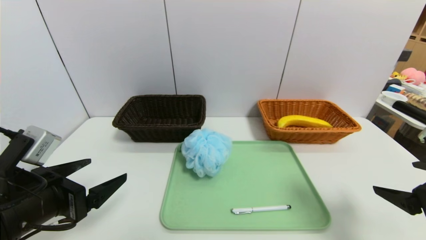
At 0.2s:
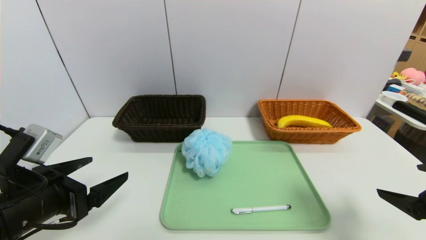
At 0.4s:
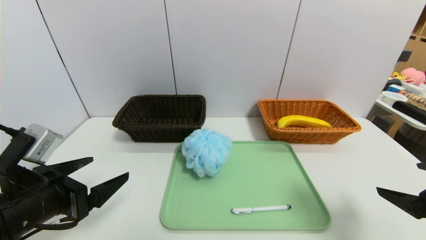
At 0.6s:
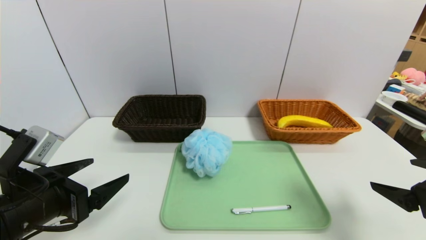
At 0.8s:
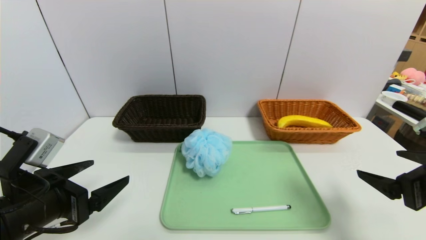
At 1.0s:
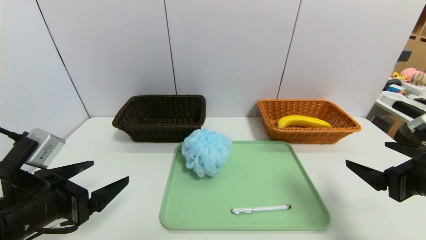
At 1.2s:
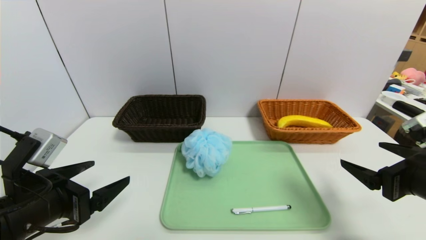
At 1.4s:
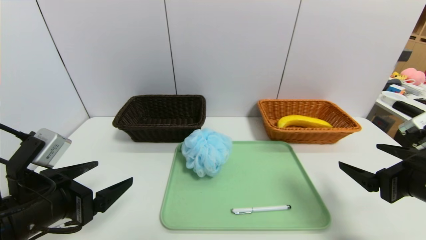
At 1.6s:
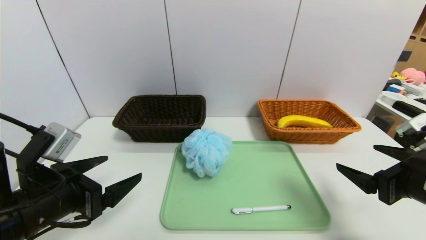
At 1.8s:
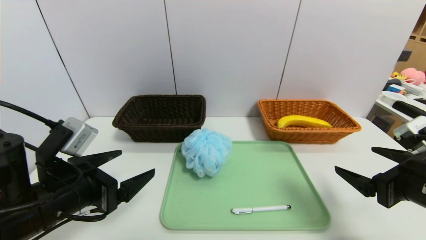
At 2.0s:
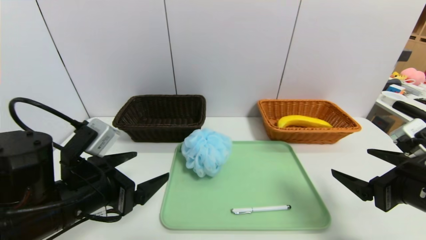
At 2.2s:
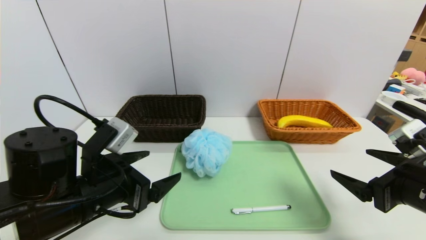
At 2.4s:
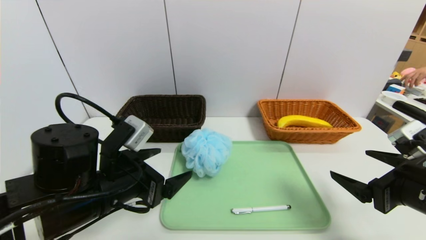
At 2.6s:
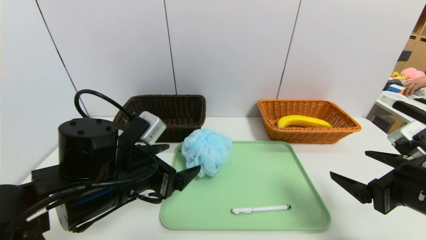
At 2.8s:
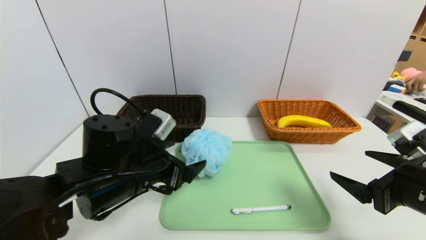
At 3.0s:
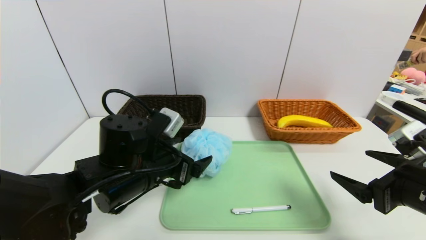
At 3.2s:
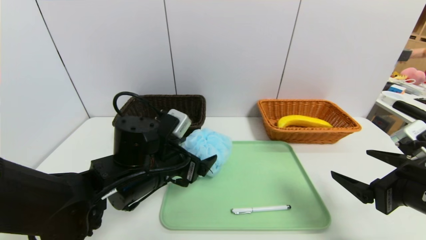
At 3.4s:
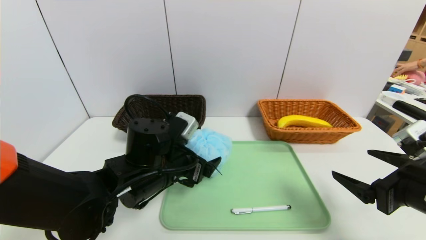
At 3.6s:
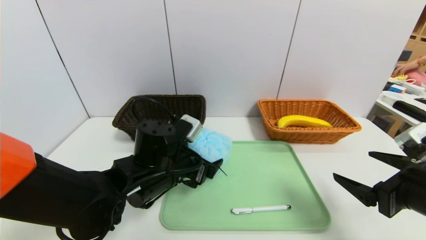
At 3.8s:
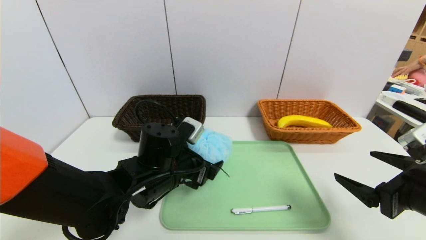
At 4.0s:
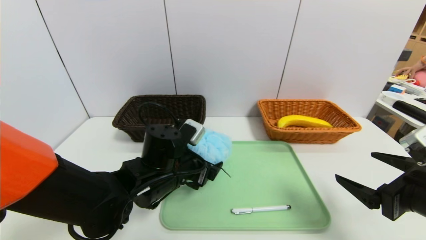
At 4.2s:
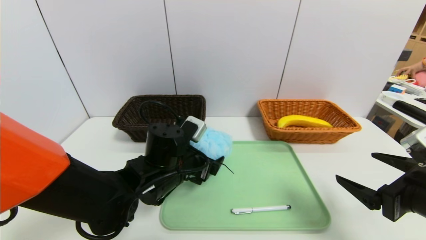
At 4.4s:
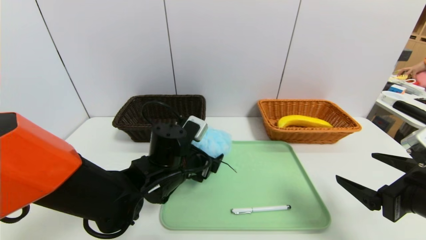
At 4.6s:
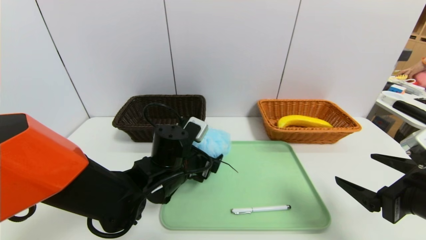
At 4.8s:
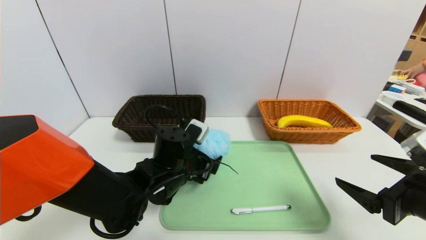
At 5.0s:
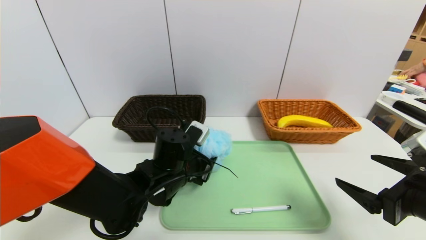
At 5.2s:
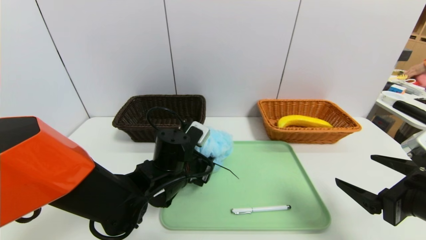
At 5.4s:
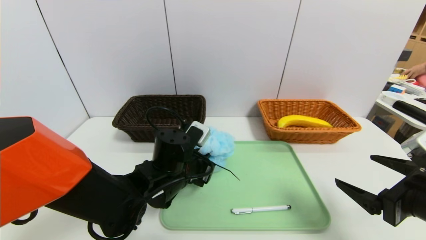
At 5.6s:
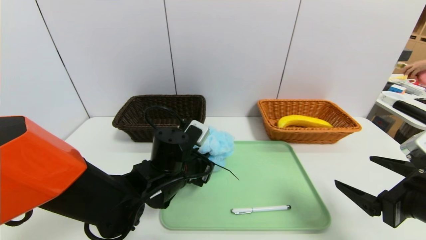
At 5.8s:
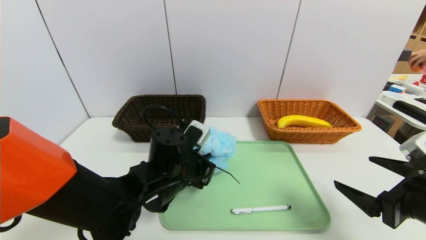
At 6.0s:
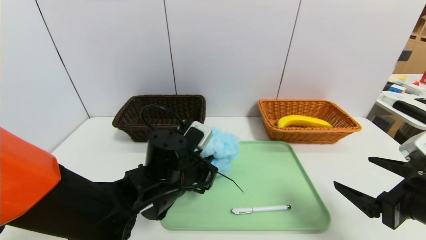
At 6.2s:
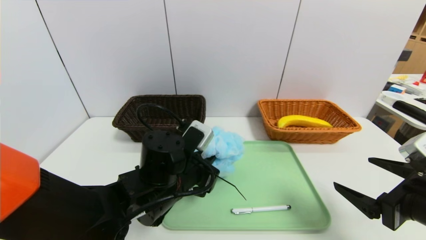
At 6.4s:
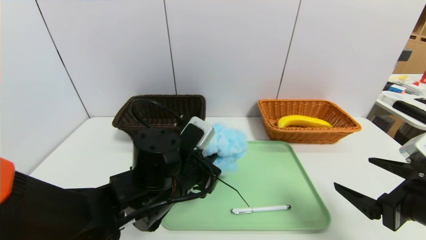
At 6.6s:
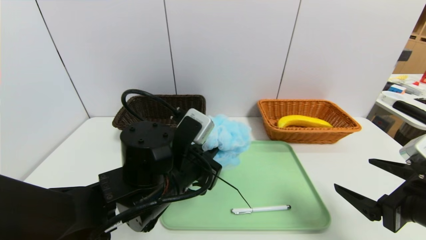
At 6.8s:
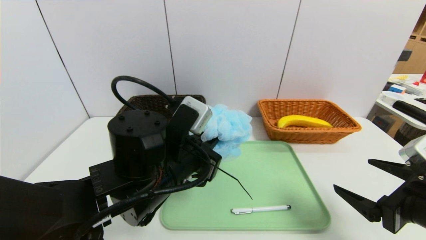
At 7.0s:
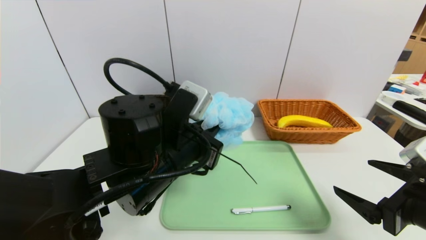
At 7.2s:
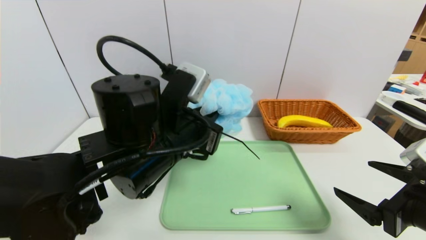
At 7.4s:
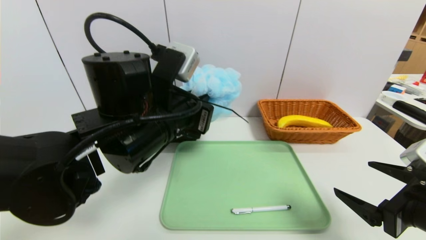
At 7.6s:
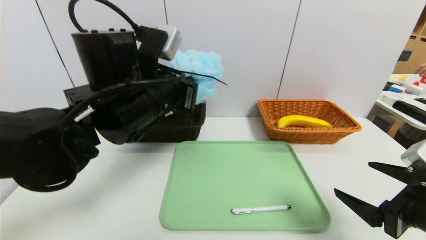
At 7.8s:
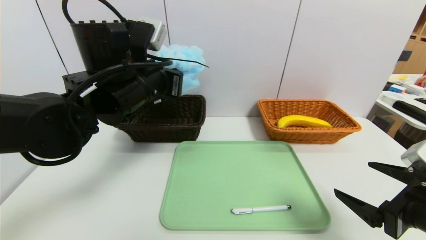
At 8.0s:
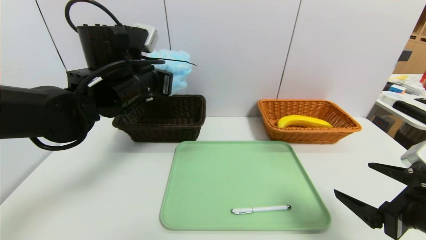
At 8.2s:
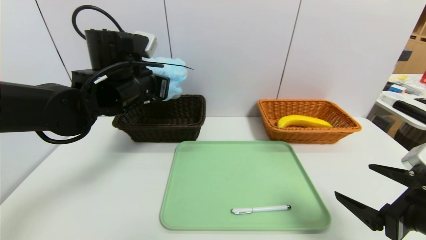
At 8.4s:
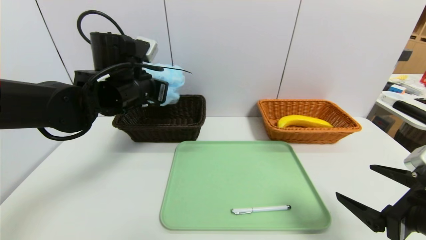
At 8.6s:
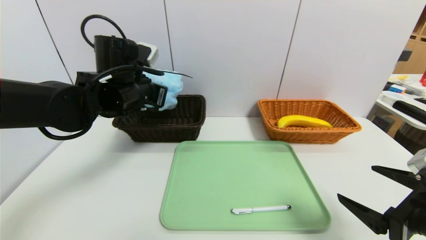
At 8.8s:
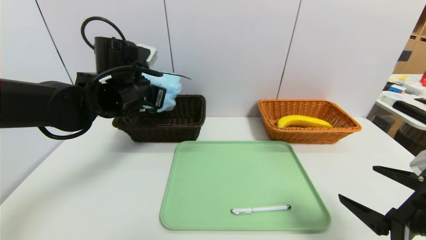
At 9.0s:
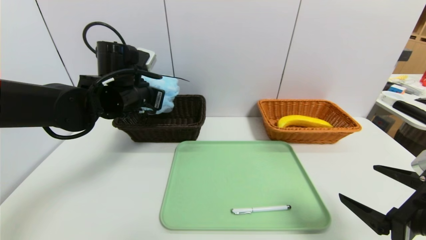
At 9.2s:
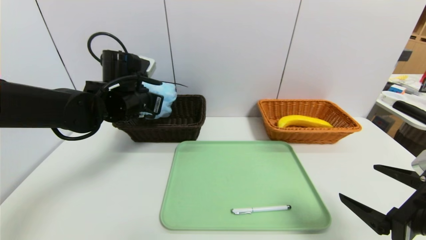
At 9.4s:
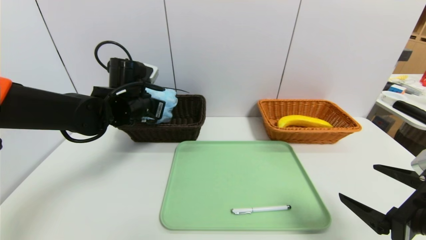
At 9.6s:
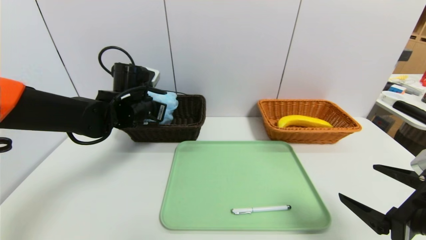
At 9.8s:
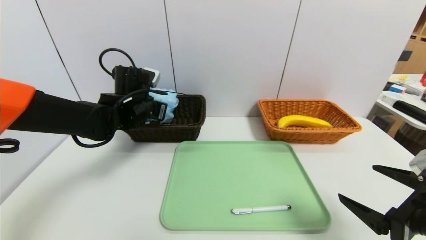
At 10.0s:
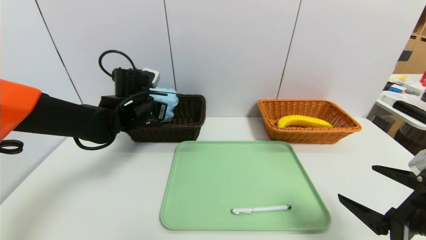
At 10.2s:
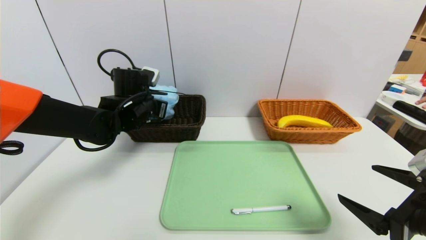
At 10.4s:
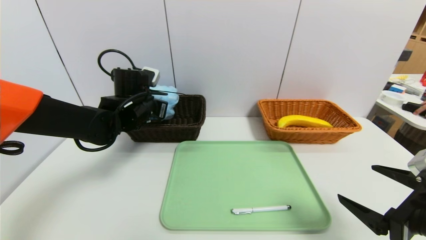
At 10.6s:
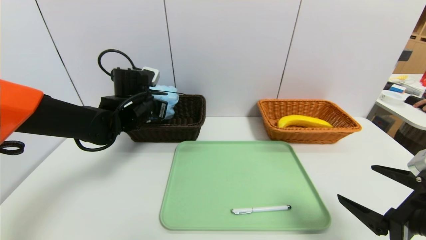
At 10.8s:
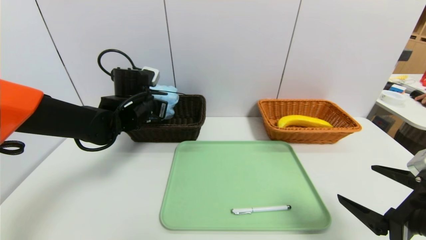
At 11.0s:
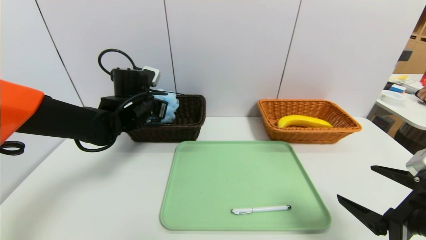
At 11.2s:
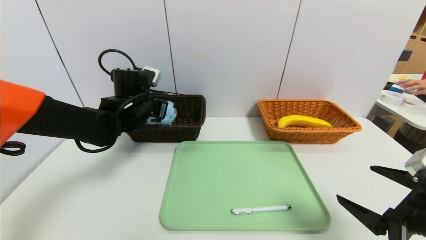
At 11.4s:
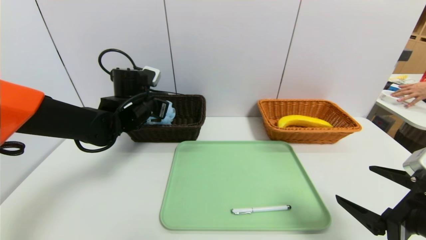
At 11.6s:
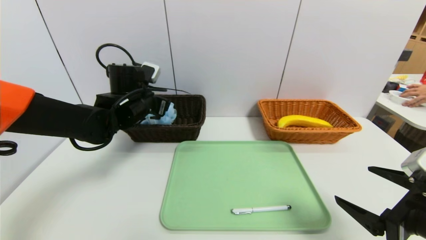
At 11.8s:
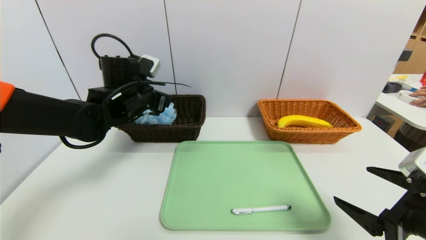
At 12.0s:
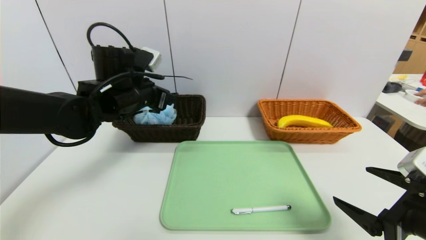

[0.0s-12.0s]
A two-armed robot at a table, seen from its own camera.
Task of the whole recording: place the food in the right basket with the right gripper, and place the non food items in the left basket with the left gripper.
Step, 0.0s to 12.0s: Grasp the shower sphere and put it in the left basket.
0.0s to 1.6s: The grippers stay close to where they were, moving slightly.
1.6s to 3.0s: The left gripper goes about 15 cm to the right and forward.
3.0s to 4.4s: The left gripper ends up some 5 cm from where it was.
4.4s to 6.0s: The left gripper closes its fingers.
6.0s to 7.6s: The left gripper shifts approximately 15 cm upward.
7.6s to 9.0s: The left gripper travels forward and to the left by about 10 cm.
9.0s to 10.4s: The left gripper ends up roughly 5 cm from where it was.
10.4s to 12.0s: The left gripper travels upward by approximately 5 cm, and opens up.

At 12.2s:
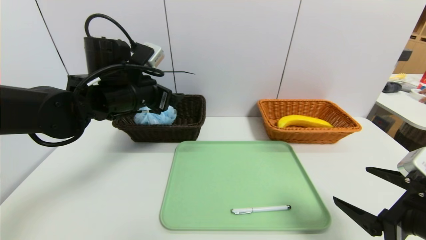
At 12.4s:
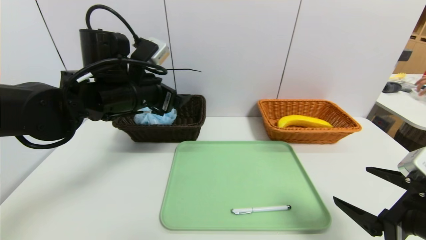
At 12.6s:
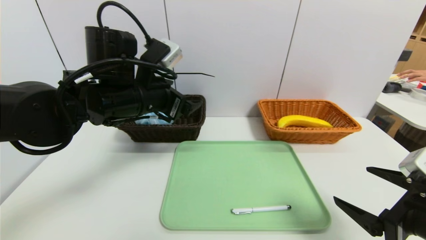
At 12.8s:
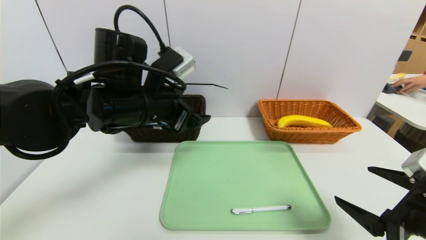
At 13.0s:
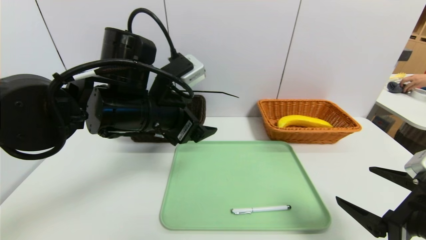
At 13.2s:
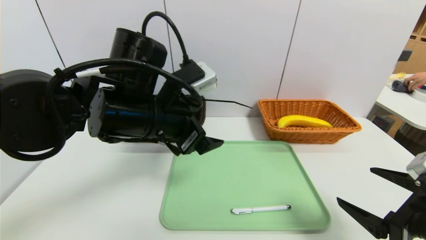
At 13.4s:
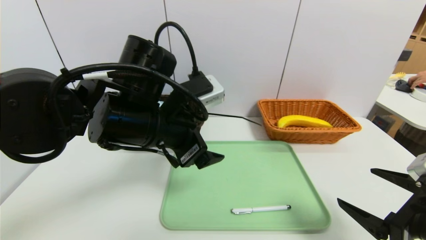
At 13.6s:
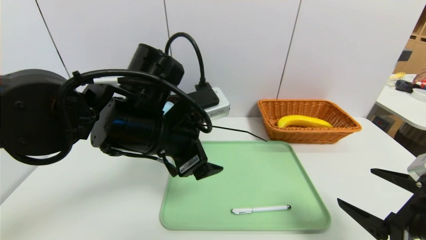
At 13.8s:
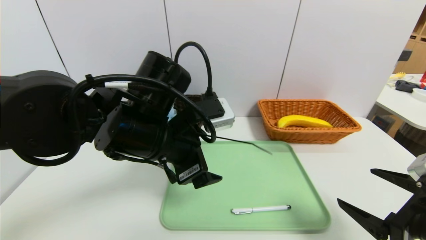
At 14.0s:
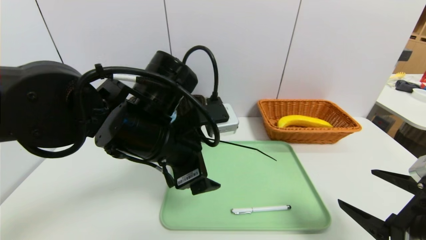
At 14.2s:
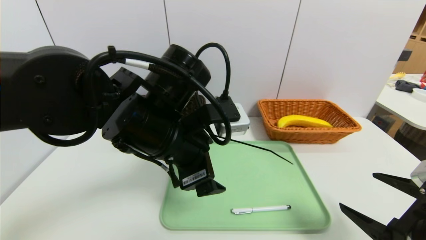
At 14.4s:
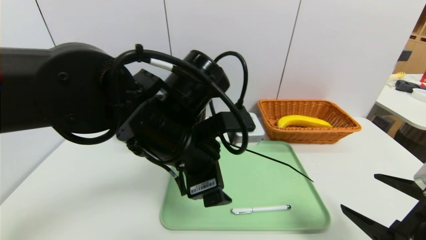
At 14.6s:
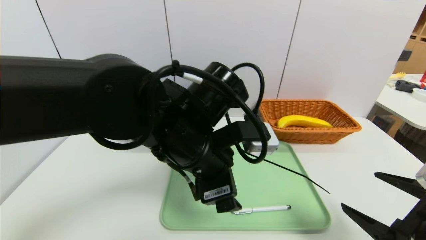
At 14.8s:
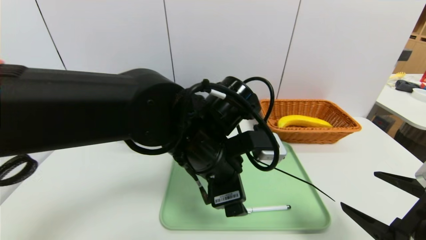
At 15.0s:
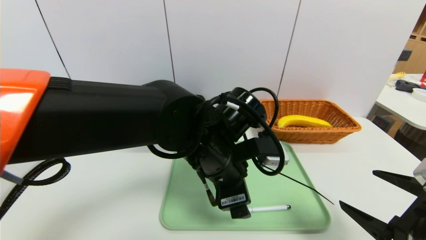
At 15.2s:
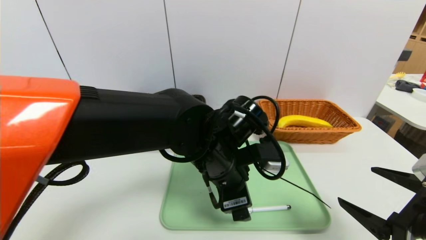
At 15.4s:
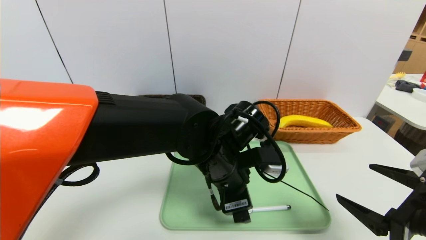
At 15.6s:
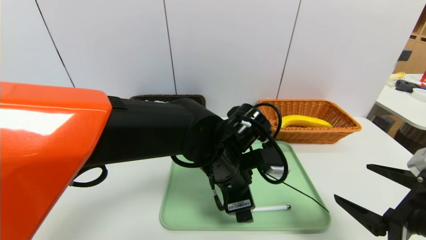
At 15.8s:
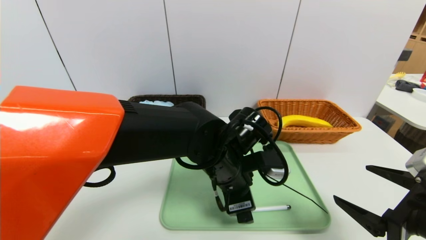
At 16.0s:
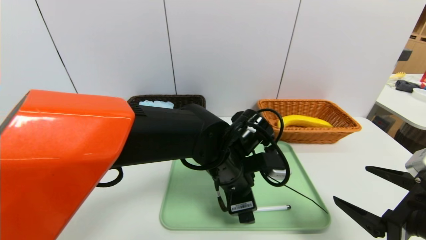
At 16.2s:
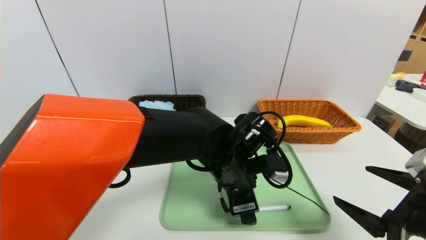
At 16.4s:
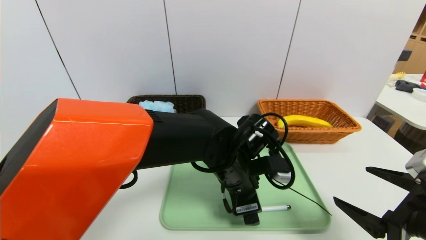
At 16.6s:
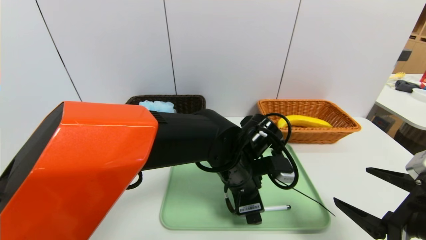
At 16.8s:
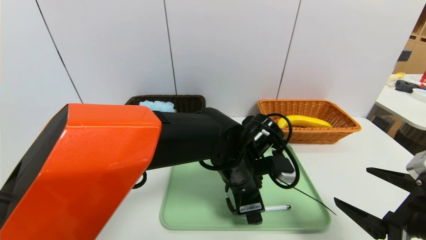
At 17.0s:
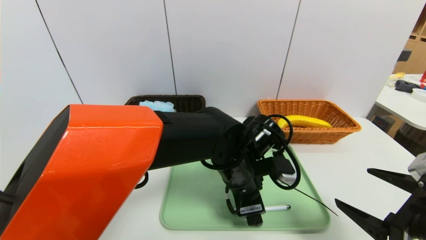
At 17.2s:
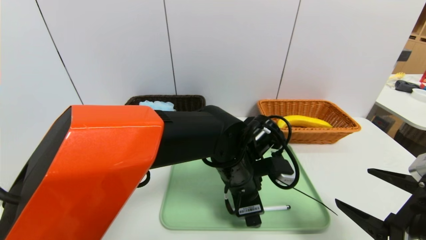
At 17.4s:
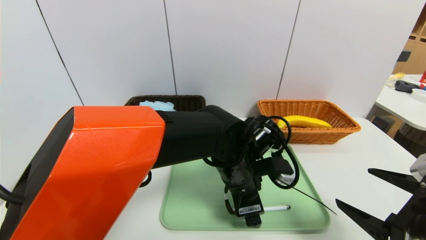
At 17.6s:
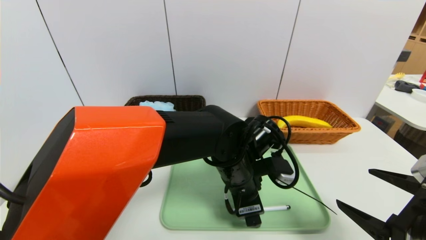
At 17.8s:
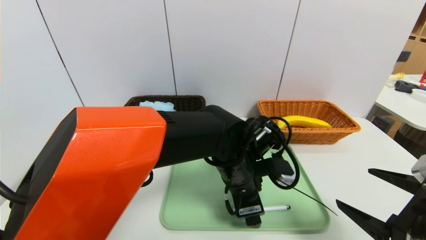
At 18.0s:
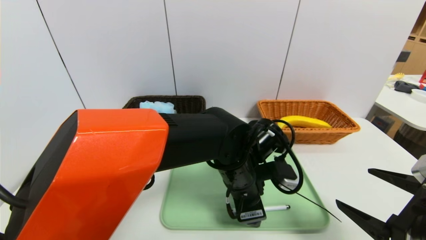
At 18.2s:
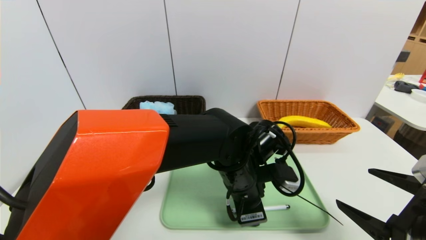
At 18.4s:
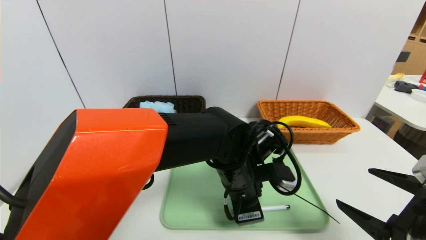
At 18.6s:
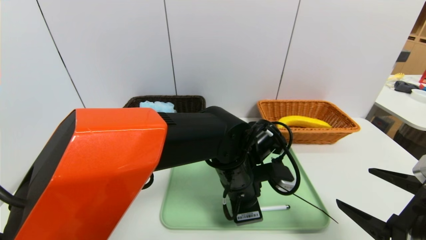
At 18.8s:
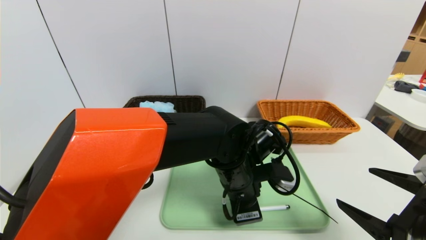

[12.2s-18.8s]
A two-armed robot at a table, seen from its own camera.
Task of the whole recording: place the food in the right basket with the right gripper, and place the non food items in the left basket with the left gripper.
12.2s to 13.8s: The left gripper shifts some 10 cm backward and to the right.
13.8s to 15.4s: The left gripper is displaced to the right and downward by about 10 cm.
15.4s to 17.2s: The left gripper moves roughly 5 cm.
17.2s to 18.8s: The left gripper closes.
